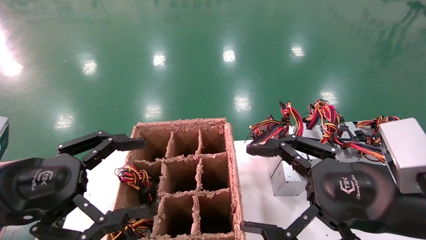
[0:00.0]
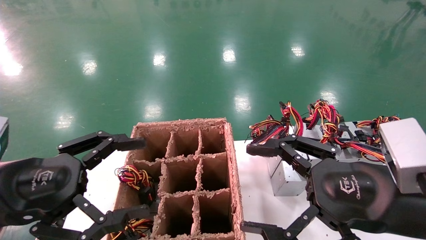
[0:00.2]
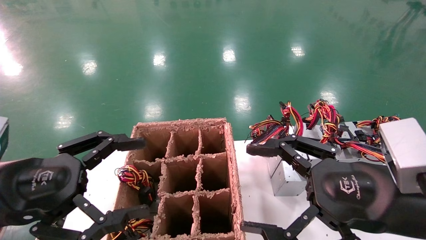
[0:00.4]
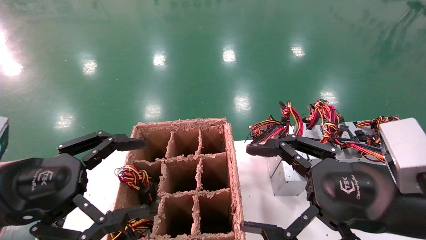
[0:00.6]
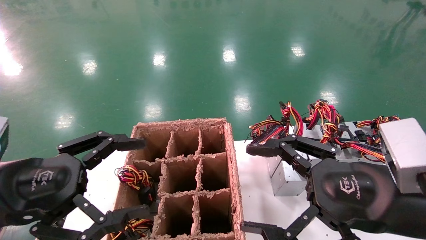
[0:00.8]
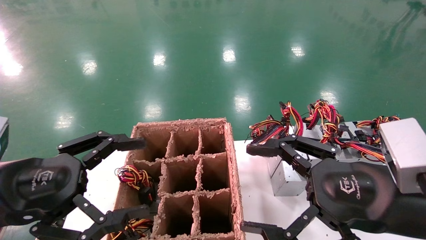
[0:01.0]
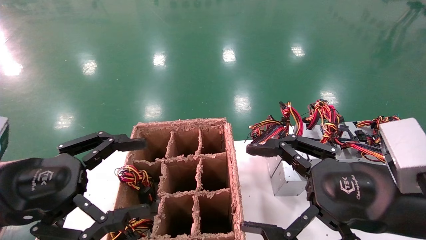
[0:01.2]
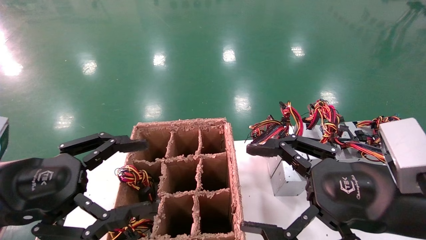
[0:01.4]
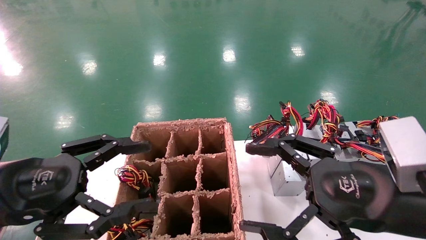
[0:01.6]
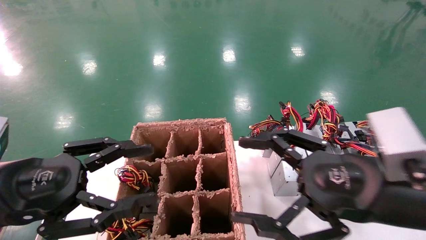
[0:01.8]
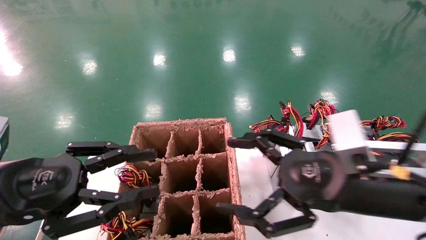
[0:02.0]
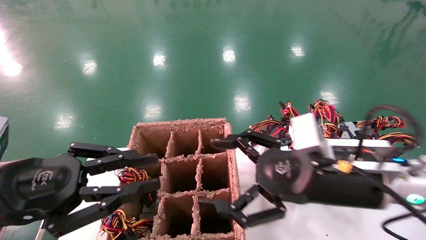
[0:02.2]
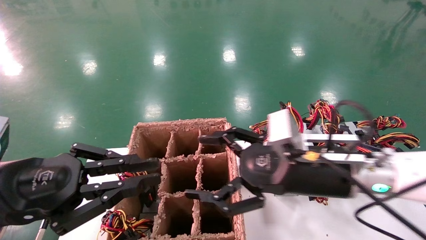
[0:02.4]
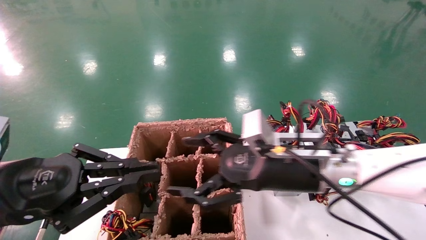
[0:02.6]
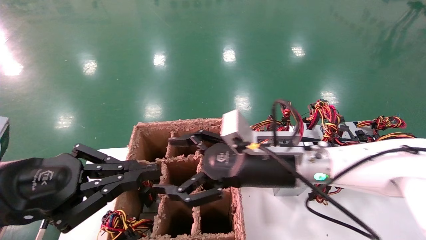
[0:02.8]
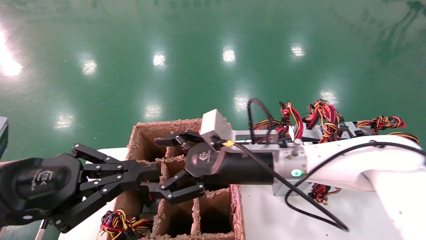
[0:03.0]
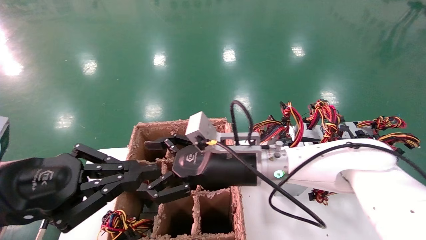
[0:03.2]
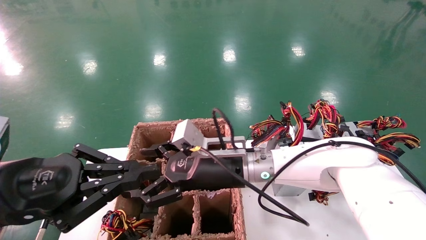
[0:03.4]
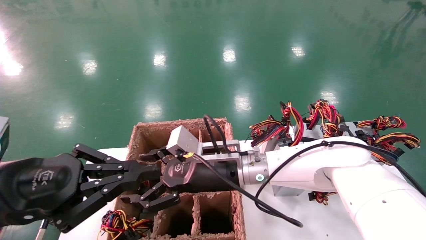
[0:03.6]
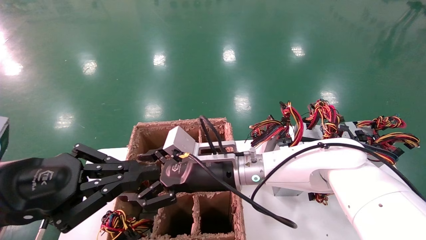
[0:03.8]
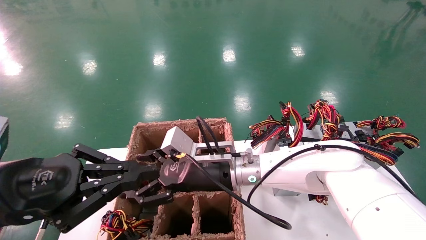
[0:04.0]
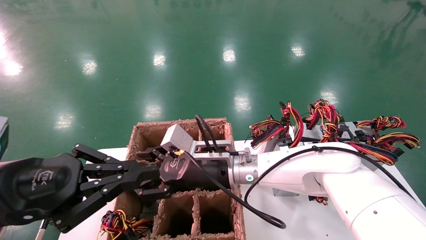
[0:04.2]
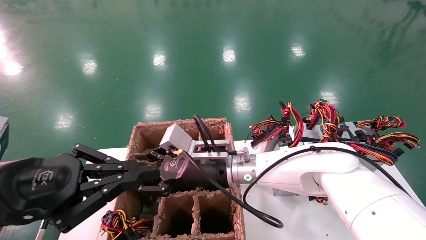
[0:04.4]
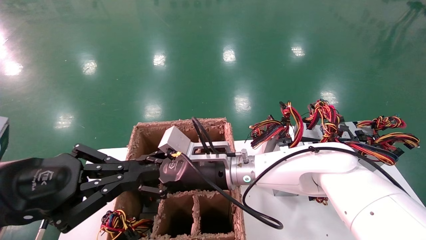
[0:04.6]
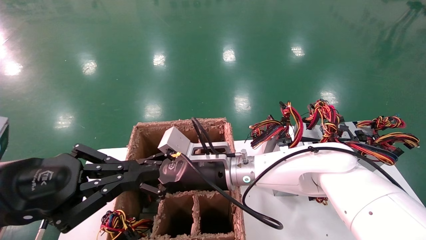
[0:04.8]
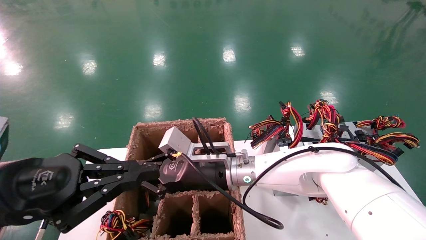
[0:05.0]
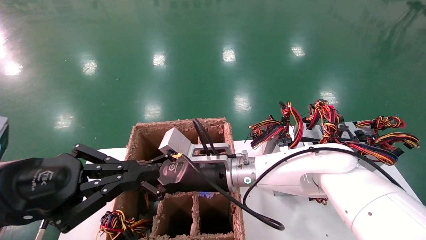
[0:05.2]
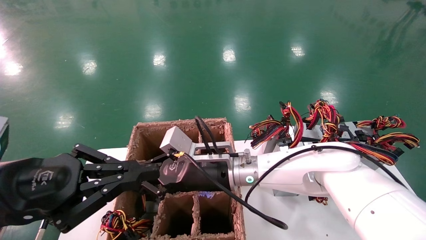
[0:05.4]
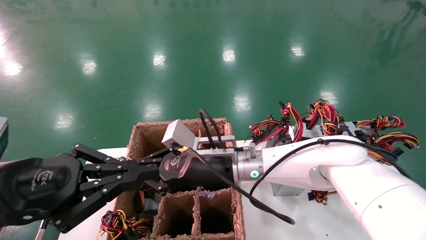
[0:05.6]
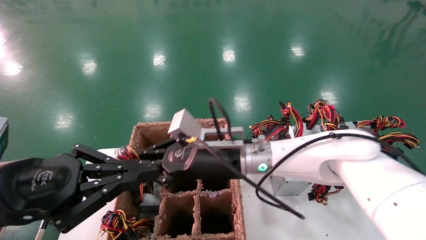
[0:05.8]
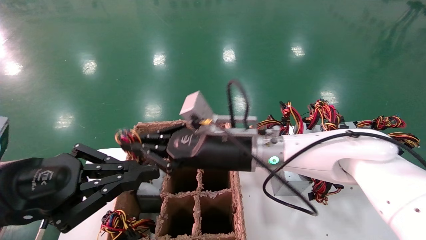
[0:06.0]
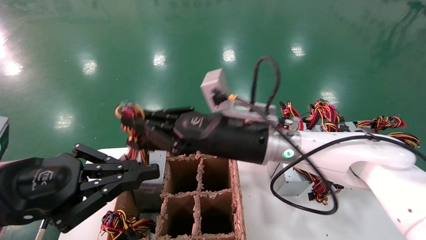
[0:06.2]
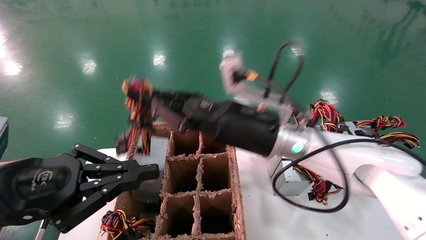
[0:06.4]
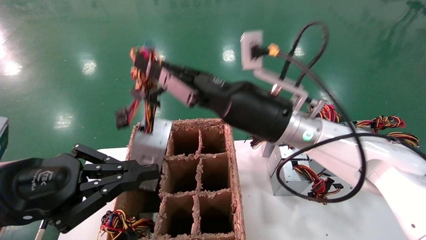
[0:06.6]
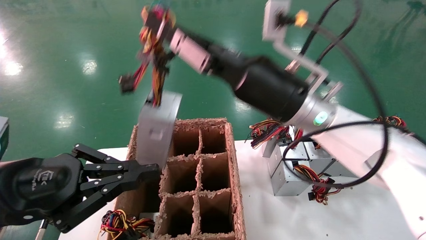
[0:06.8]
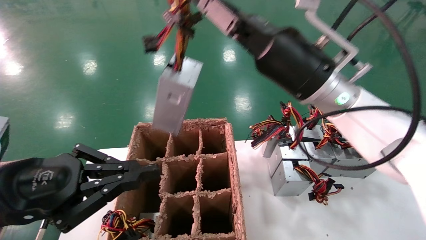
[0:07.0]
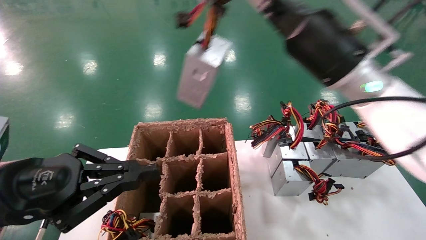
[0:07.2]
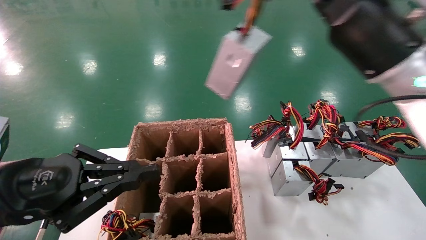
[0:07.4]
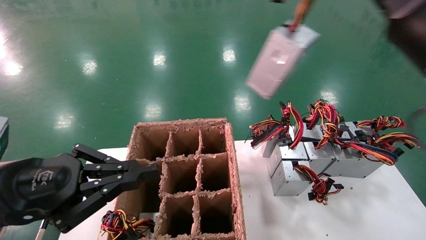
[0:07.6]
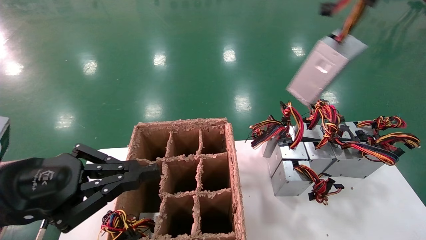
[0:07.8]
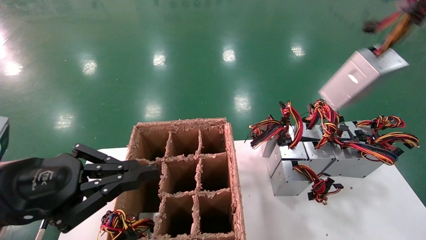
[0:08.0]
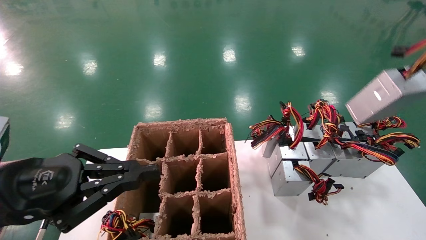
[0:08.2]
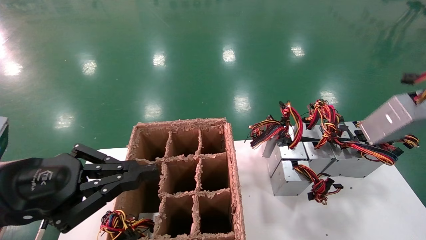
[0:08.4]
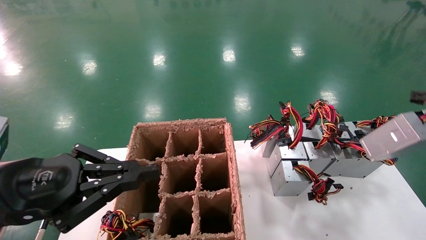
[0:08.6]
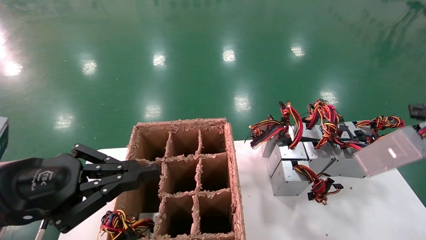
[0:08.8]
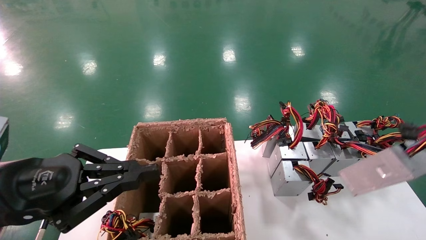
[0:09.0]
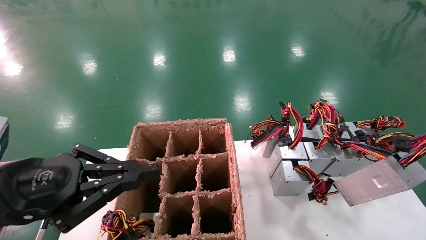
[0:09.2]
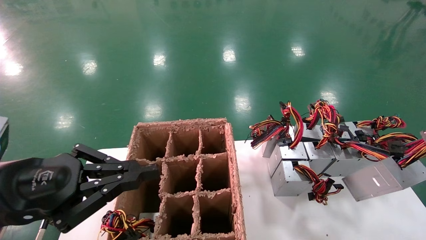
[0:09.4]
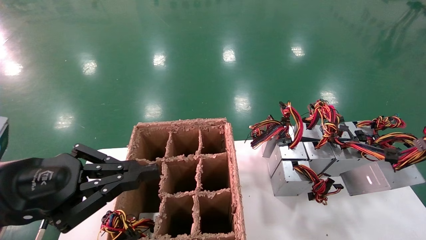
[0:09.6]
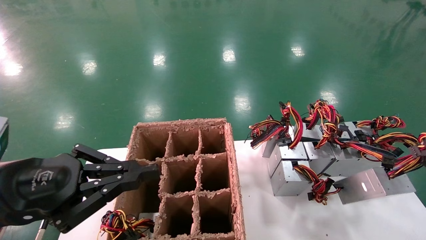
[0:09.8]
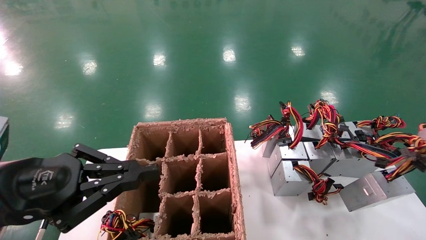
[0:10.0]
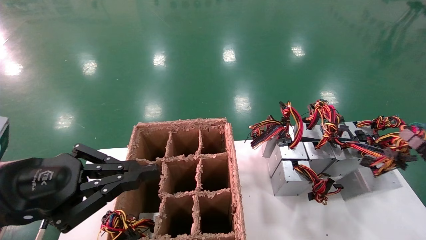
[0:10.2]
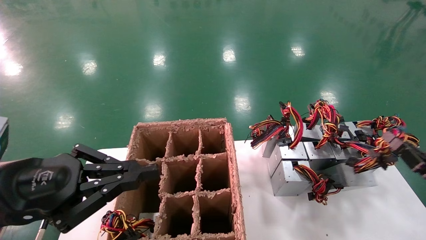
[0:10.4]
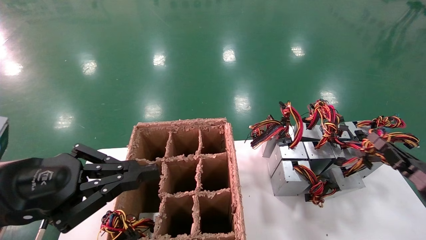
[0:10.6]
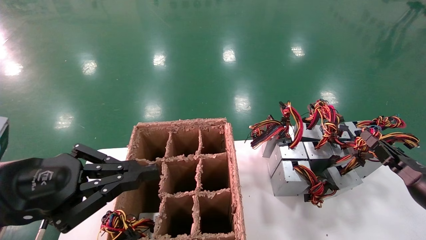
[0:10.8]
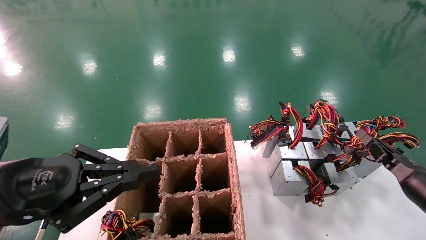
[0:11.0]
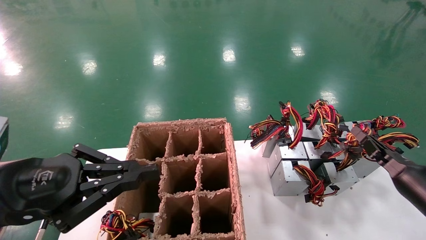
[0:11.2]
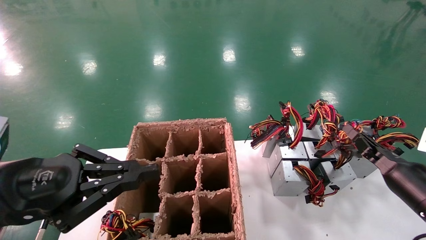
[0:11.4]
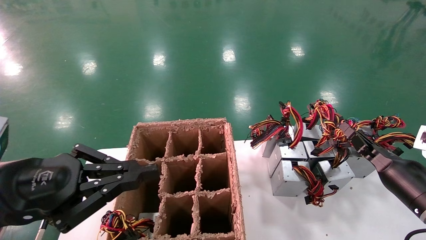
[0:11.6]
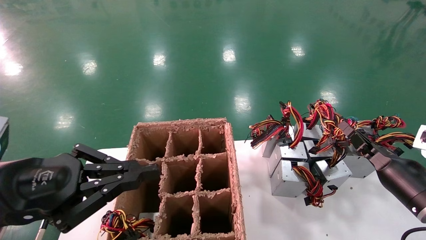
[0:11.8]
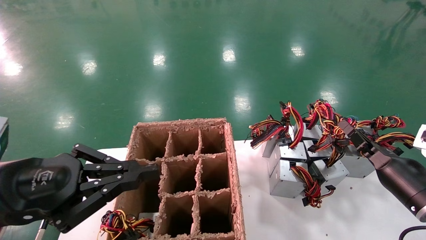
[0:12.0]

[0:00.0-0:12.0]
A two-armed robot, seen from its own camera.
Step, 0:01.8 to 0:05.0: Grab the main unit power supply from the containment box.
0:00.0 to 0:01.6: Neither gripper changes place.
0:01.6 to 0:03.0: The right gripper goes about 20 cm to the left and forward. The left gripper closes up.
0:03.0 to 0:04.4: The right gripper goes some 5 cm to the left.
0:04.4 to 0:06.0: The right gripper travels upward by approximately 5 cm, and closes its fingers.
0:06.0 to 0:07.6: The right gripper is displaced to the right and upward by approximately 30 cm.
0:07.6 to 0:09.0: The right gripper moves to the right, downward and backward, approximately 30 cm.
0:09.0 to 0:10.4: The right gripper moves forward and downward, some 10 cm.
0:10.4 to 0:12.0: The right gripper heads forward and to the left, covering about 10 cm.

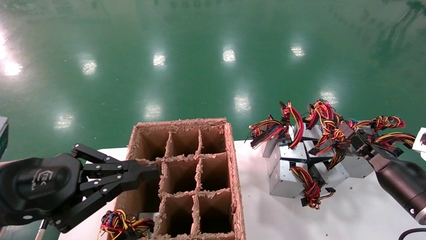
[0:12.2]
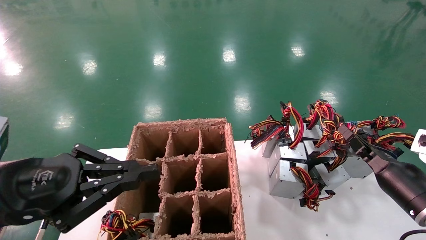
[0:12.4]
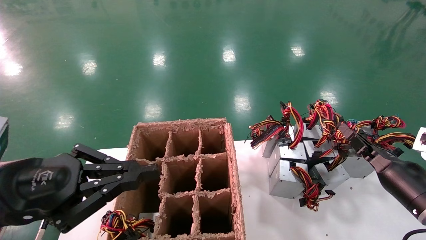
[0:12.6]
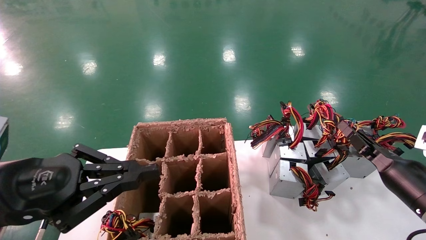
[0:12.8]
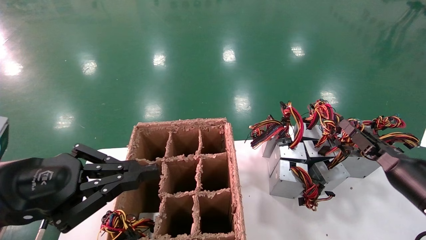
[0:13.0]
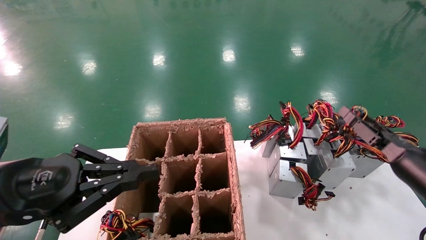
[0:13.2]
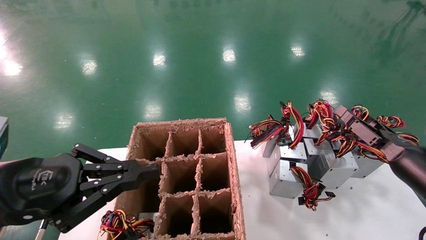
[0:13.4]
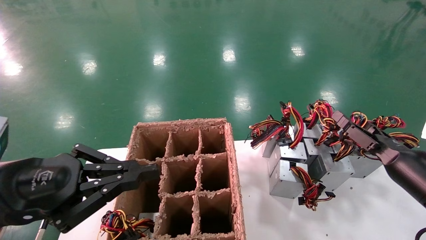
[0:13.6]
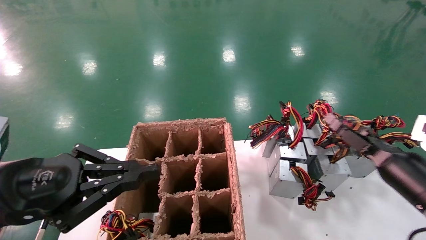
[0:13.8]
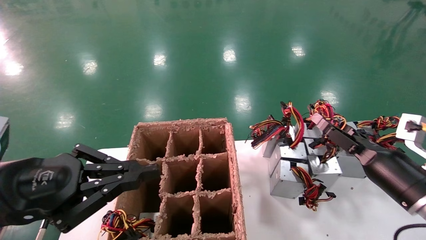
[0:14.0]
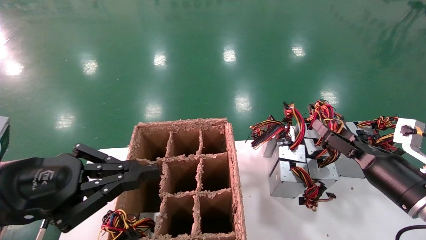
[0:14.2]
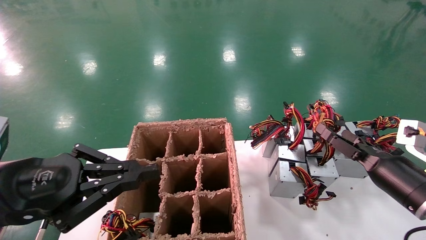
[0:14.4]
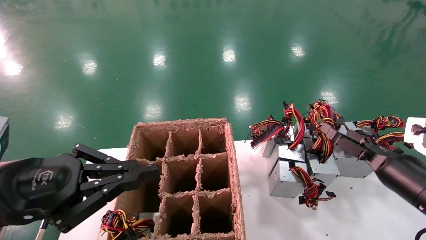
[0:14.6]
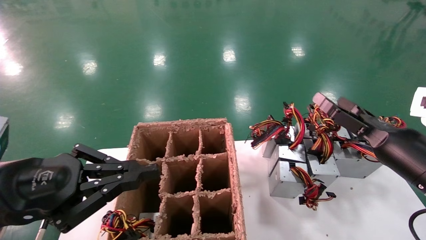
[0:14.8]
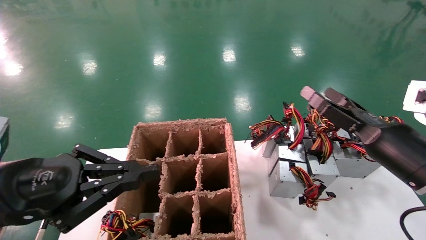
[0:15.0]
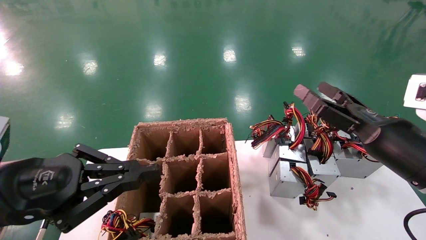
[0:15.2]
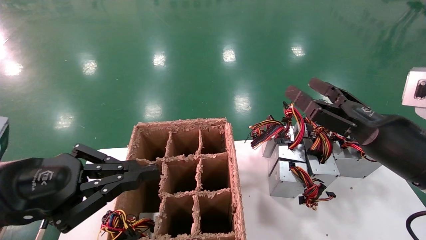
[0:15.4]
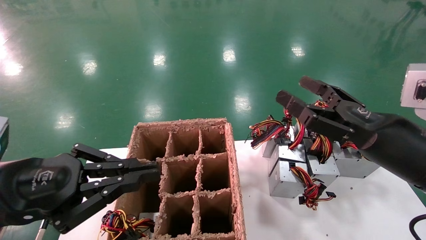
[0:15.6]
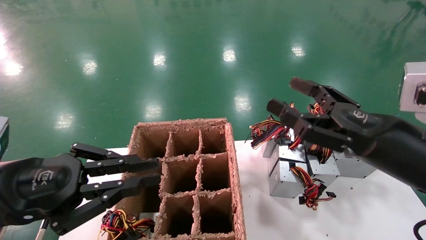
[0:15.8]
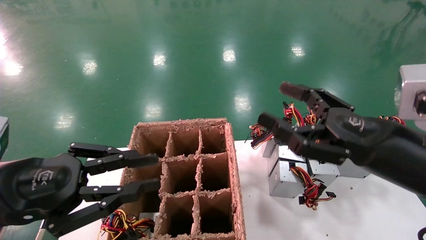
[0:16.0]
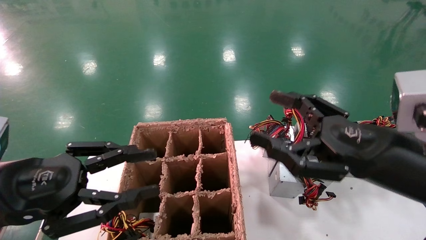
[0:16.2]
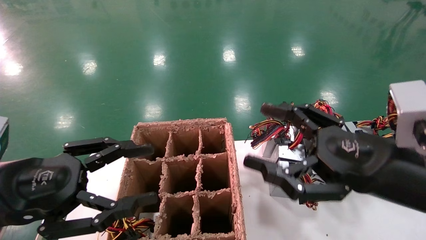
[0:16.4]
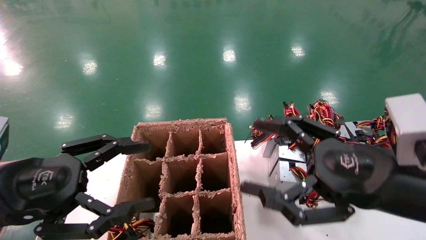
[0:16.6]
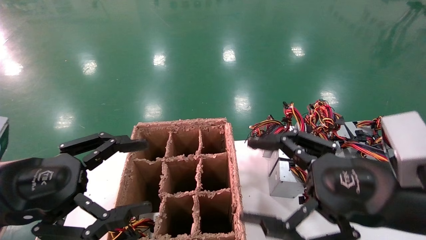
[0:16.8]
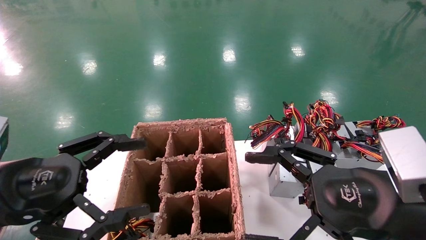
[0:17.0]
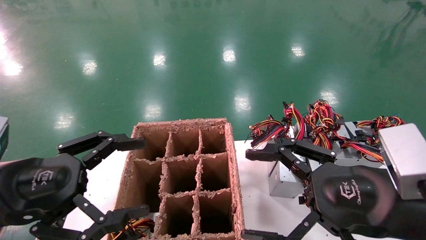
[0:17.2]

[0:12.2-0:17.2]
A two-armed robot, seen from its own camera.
Step, 0:12.2 to 0:14.8: Place the main unit power supply in the designated area.
0:12.2 to 0:13.8: The right gripper opens.
0:13.8 to 0:15.6: The right gripper moves upward and to the left, approximately 10 cm.
0:15.6 to 0:17.2: The right gripper travels backward by approximately 5 cm. The left gripper opens up.
